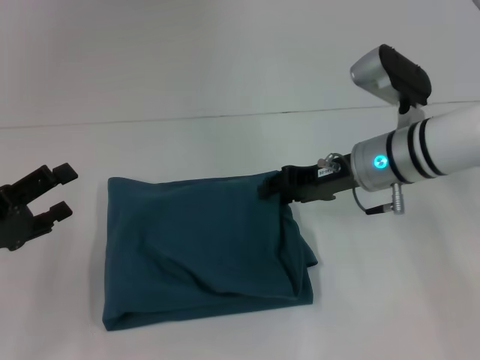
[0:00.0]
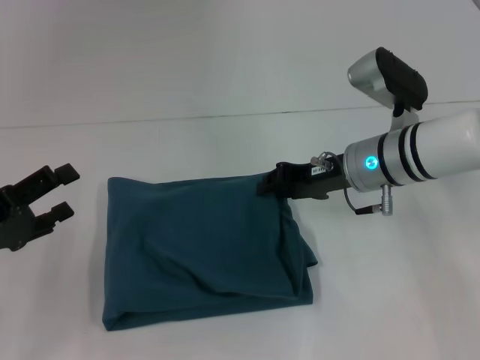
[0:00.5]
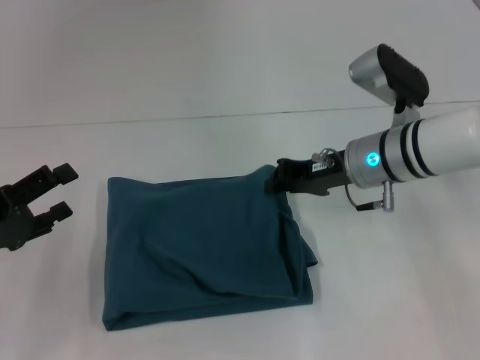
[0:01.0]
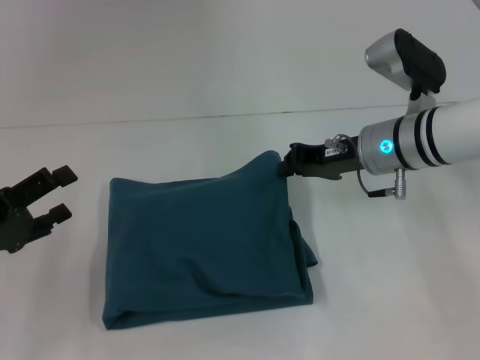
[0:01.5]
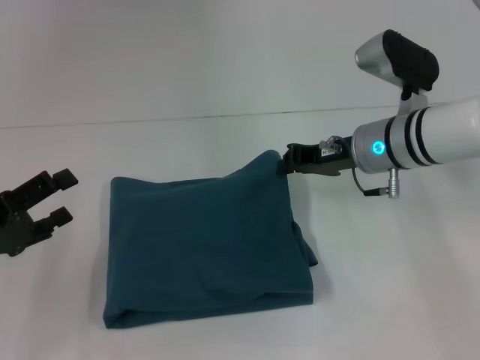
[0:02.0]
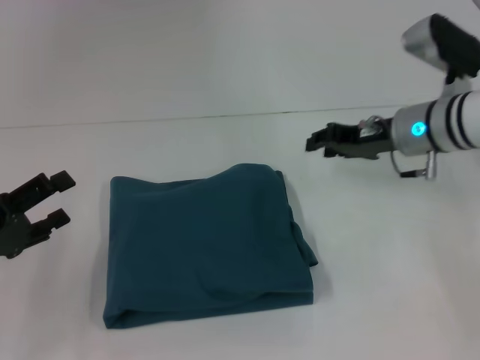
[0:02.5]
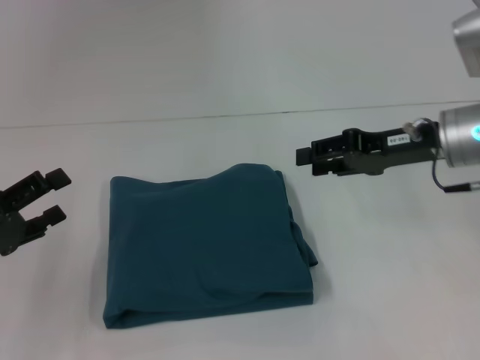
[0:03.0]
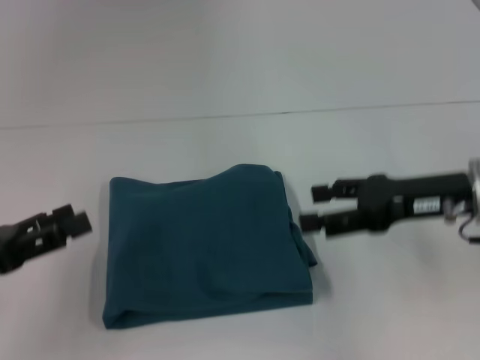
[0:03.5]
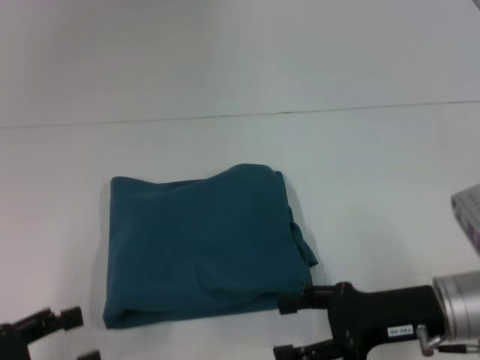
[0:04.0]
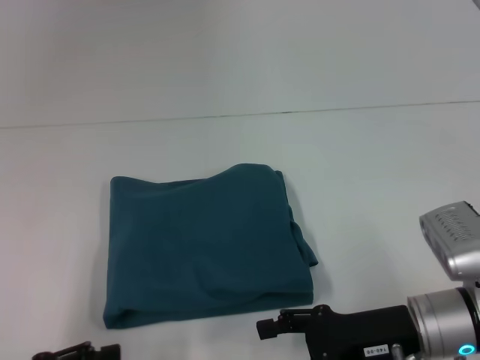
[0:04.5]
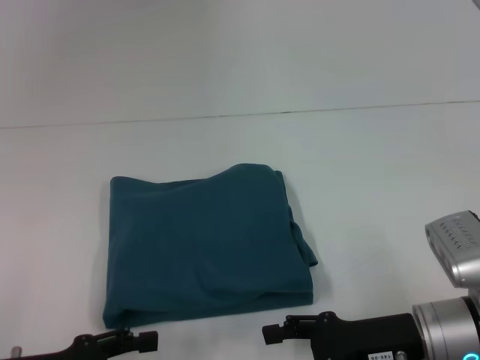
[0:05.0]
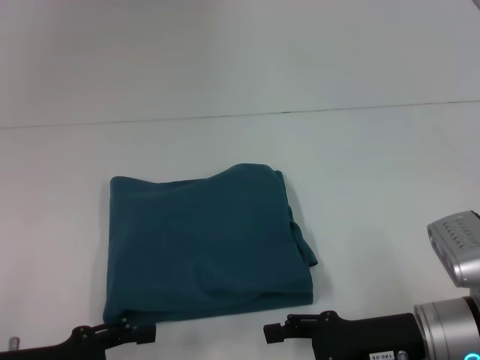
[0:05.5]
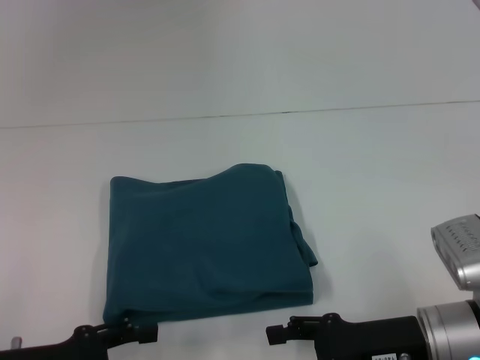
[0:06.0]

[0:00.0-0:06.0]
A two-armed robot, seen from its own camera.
0:00.0 to 0:02.0: The right gripper closes its fingers.
0:02.0 to 0:04.0: The right gripper travels backward by about 15 cm, and opens. The left gripper is displaced backward by roughly 10 cm.
0:04.0 to 0:06.0: The left gripper travels to the right by approximately 5 cm.

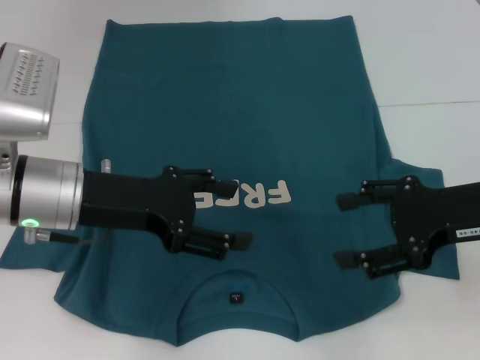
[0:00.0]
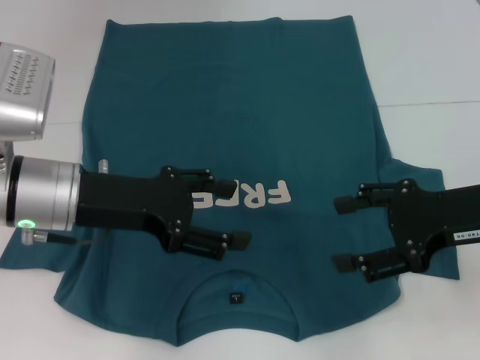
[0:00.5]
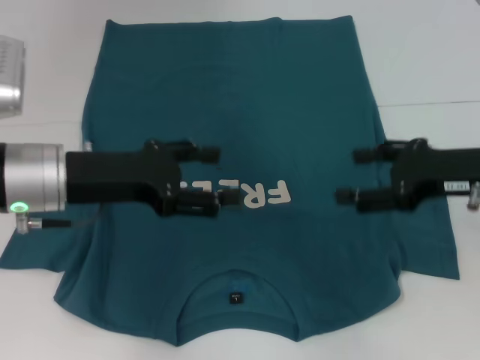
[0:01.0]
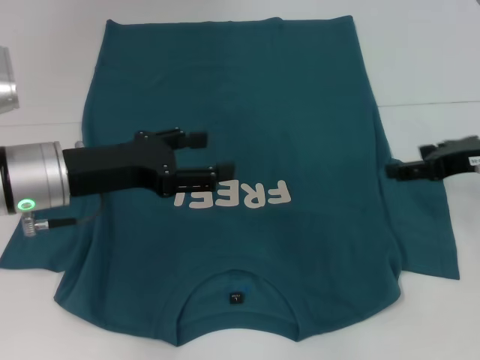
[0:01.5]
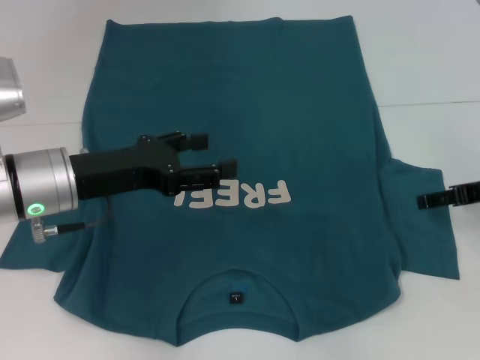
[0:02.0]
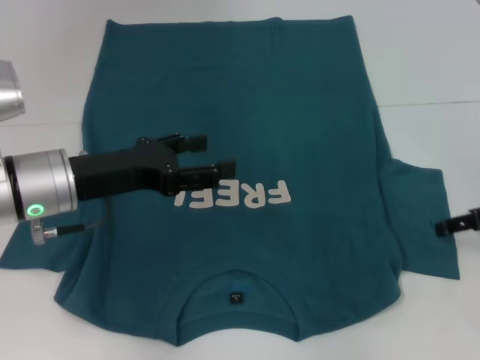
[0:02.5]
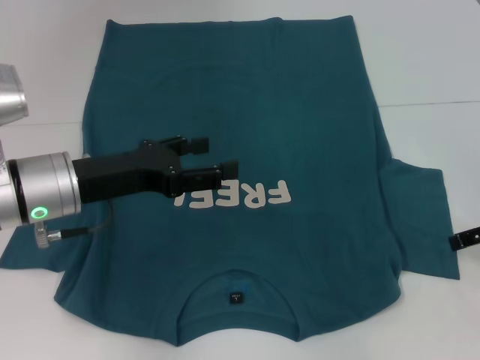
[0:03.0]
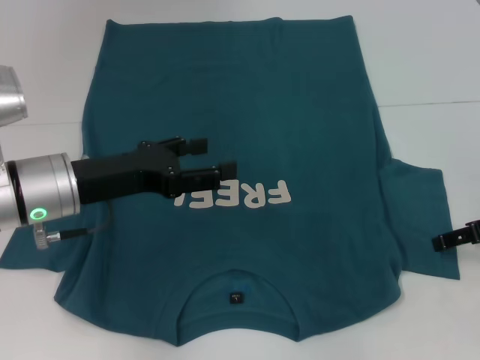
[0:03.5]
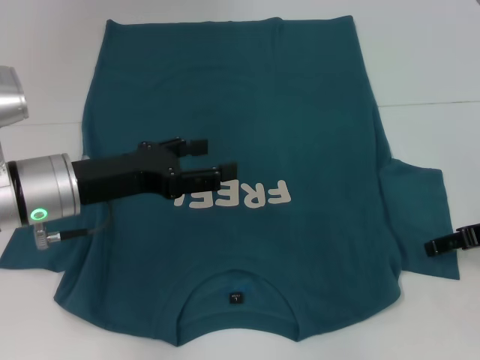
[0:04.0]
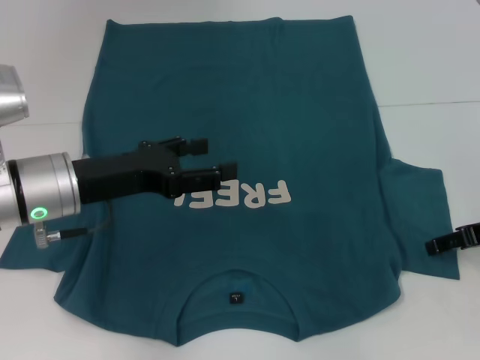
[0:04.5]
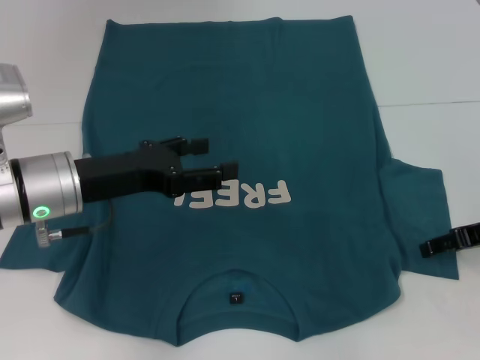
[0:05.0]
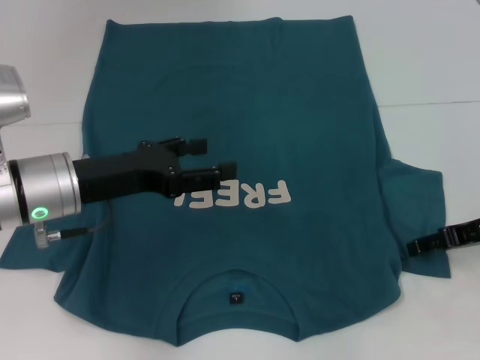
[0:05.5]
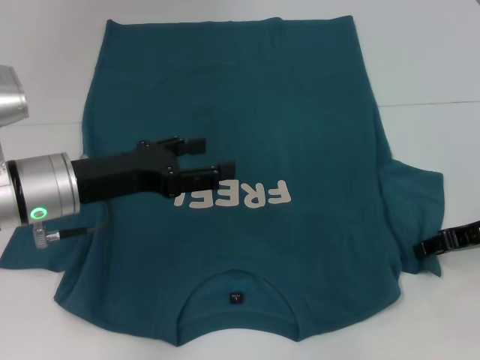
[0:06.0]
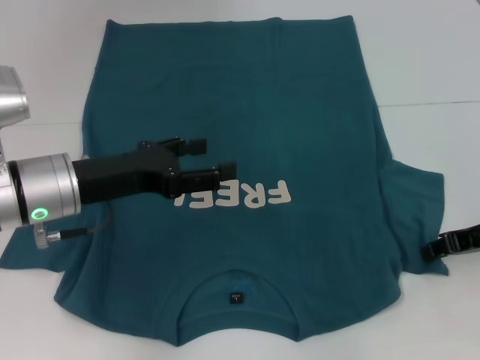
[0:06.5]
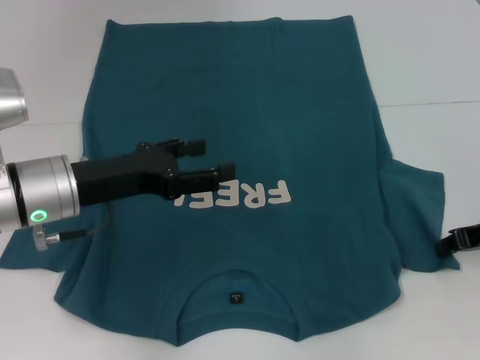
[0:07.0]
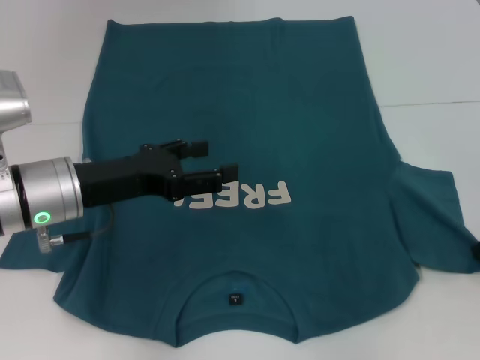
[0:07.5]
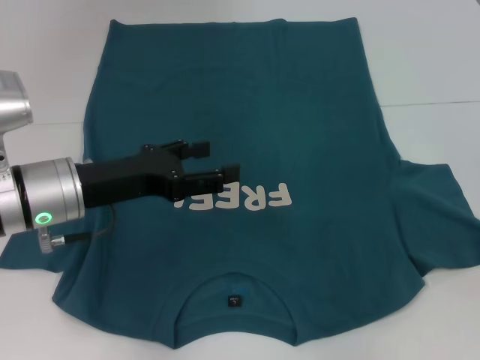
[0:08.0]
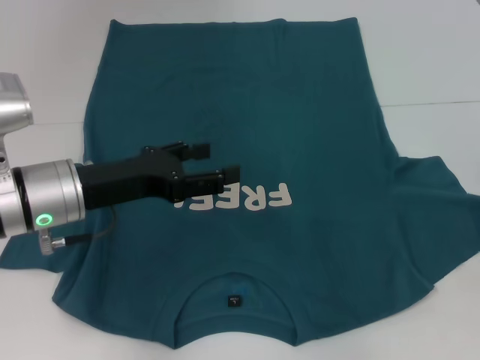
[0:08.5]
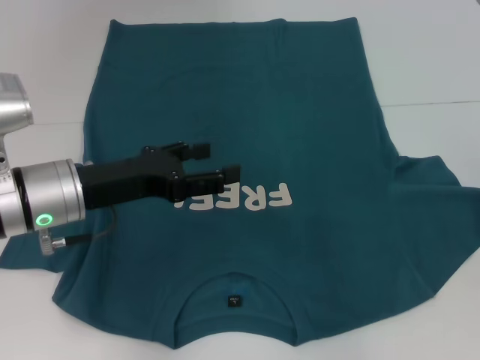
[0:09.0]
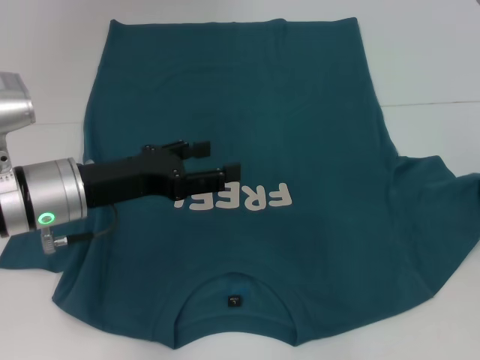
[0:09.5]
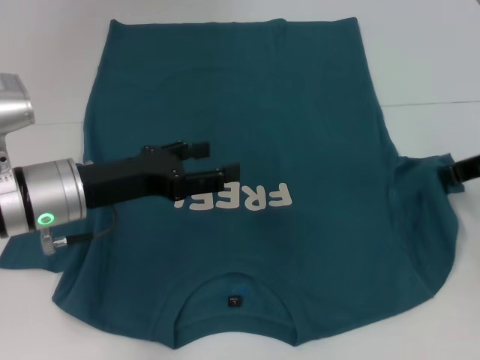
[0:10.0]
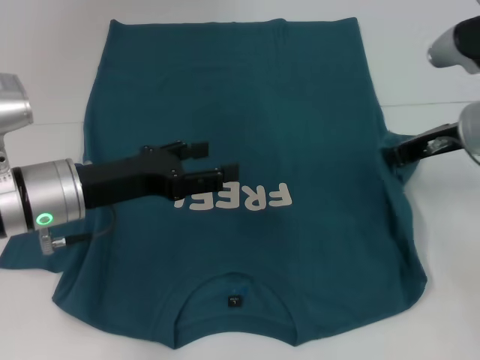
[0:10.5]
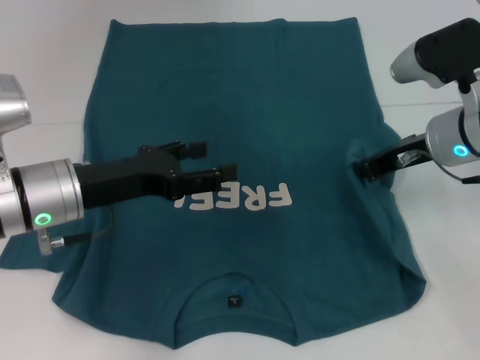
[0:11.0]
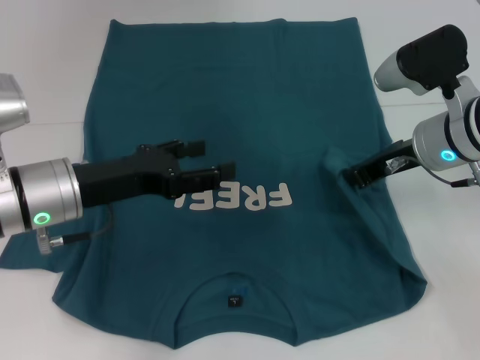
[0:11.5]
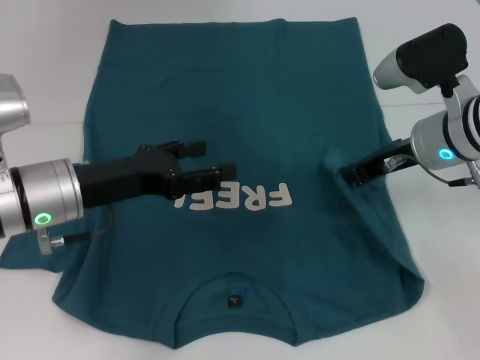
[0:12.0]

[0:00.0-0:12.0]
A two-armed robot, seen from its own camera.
0:00.0 to 0:02.0: The right gripper goes approximately 10 cm to the right and forward.
0:02.0 to 0:06.0: There are only small adjustments of the grippers.
0:06.0 to 0:08.0: The right gripper changes place by approximately 5 cm, and closes.
0:08.0 to 0:10.0: The right gripper goes approximately 5 cm to the left.
0:10.0 to 0:12.0: The right gripper is displaced to the left by some 10 cm.

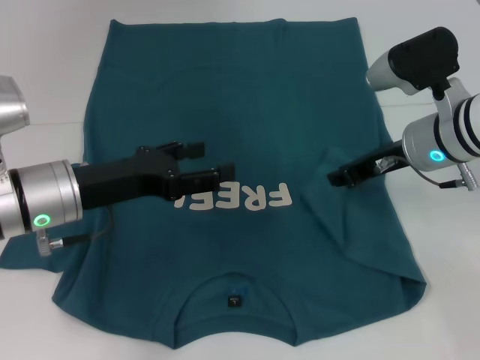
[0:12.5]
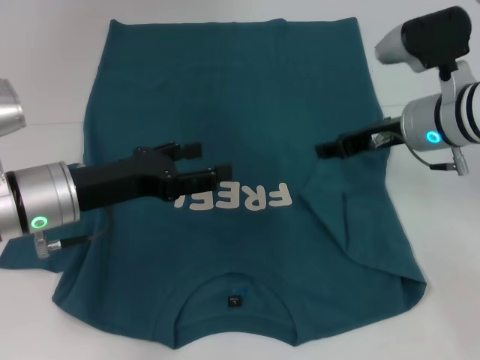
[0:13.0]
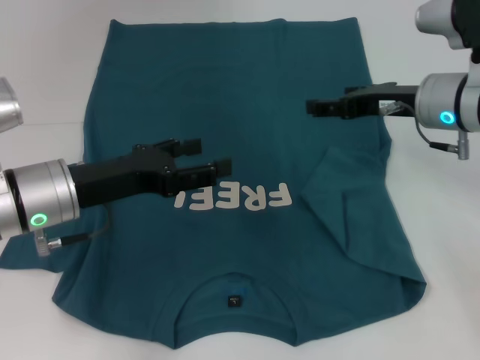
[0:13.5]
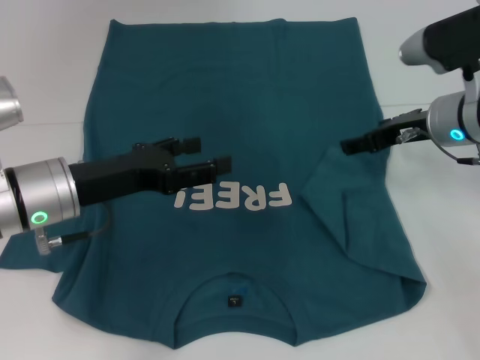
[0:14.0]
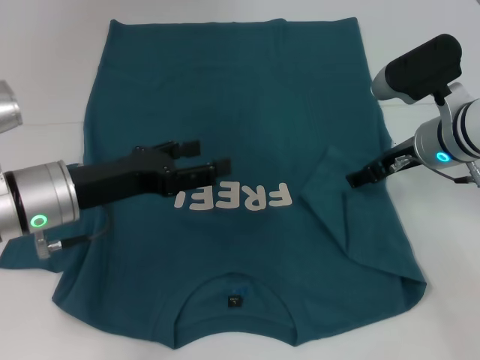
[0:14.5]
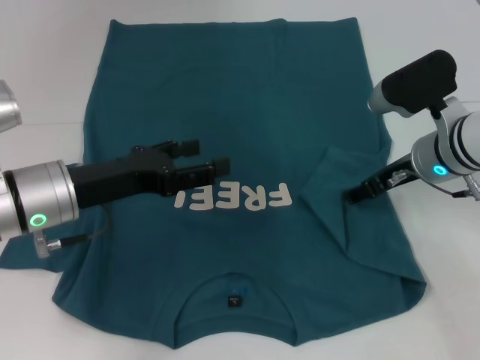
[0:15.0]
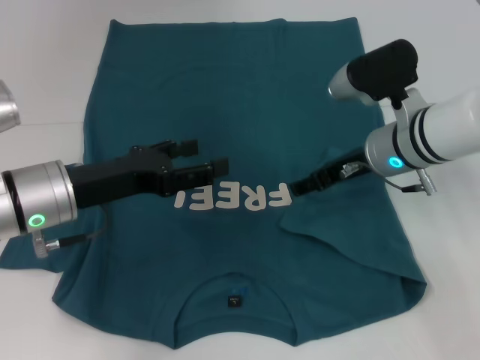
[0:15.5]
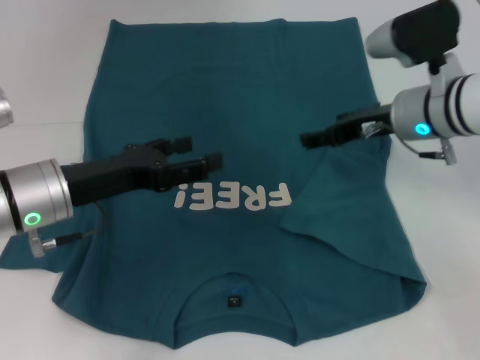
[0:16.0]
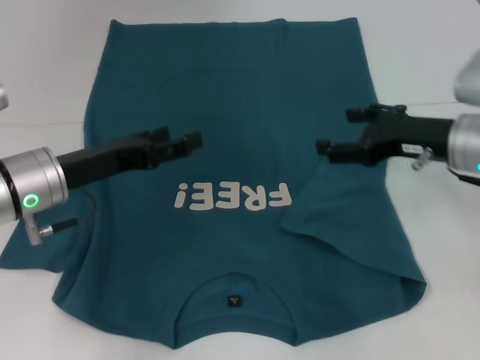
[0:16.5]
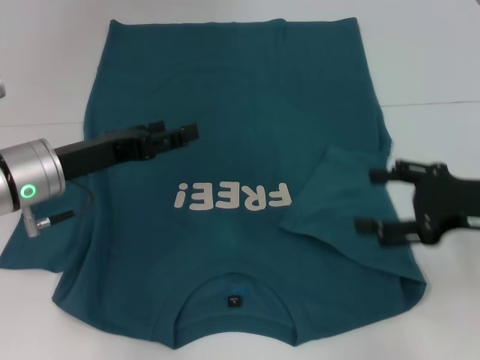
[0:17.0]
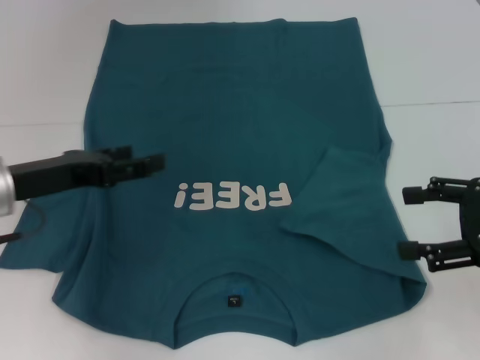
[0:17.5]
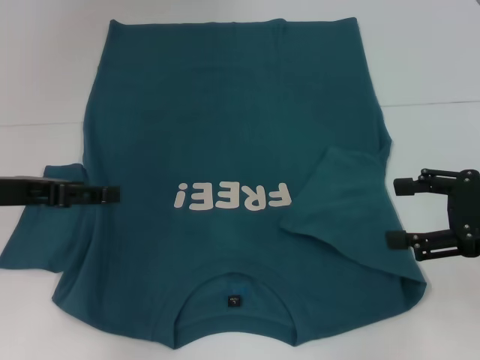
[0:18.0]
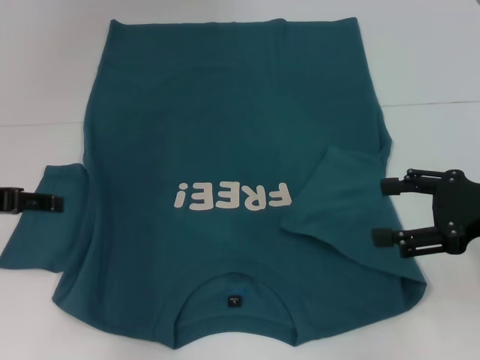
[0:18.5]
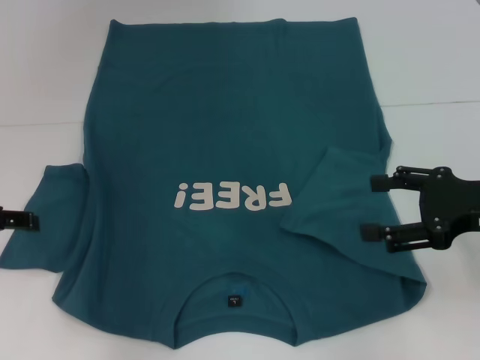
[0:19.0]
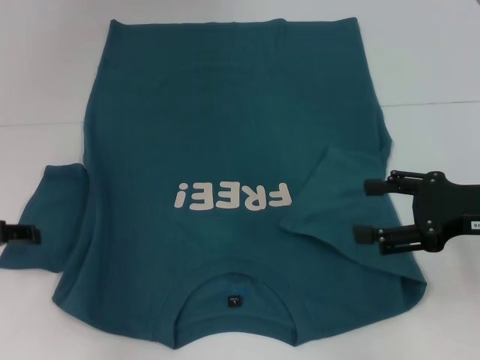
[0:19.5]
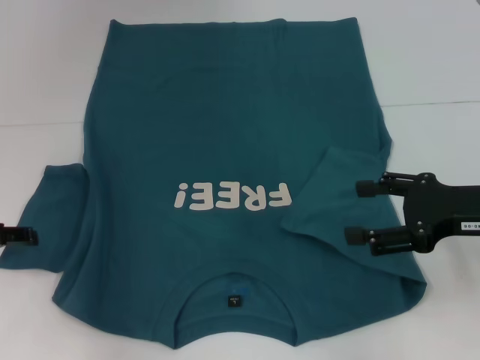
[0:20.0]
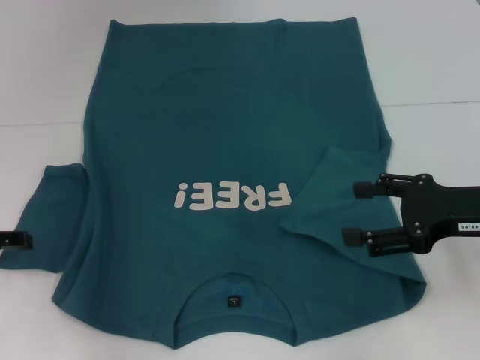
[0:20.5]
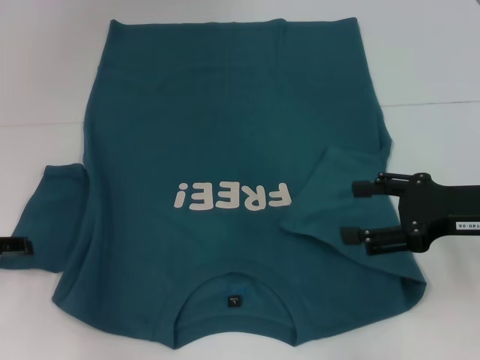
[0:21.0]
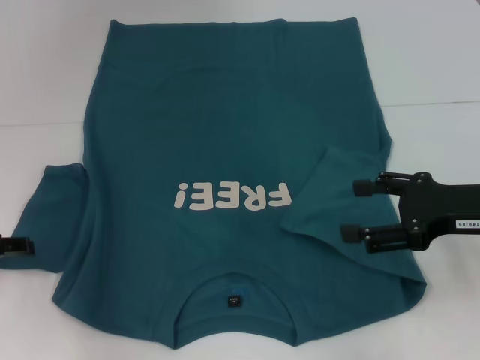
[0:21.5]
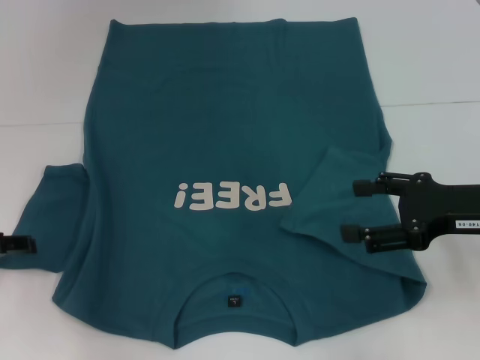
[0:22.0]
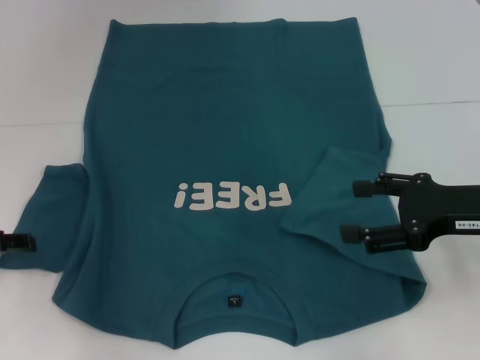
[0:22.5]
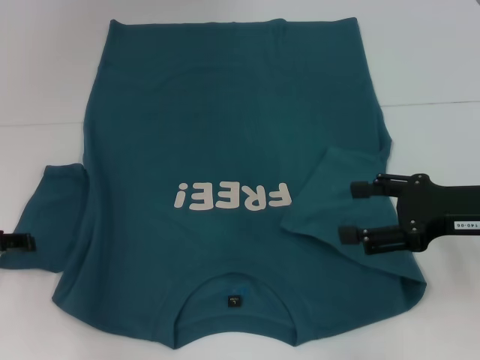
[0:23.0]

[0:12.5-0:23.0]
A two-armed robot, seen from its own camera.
Step, 0:12.5 to 0:16.0: Fold the bottom right sleeve to the right.
0:12.5 to 0:14.5: The right gripper opens.
0:14.5 to 0:16.5: The right gripper changes place by roughly 5 cm.
0:16.5 to 0:19.0: The left gripper is displaced to the left by about 10 cm; the right gripper goes some 10 cm backward.
0:19.0 to 0:21.0: The grippers stay close to where they were, moving slightly.
0:21.0 to 0:23.0: Both grippers stay about where they are.
